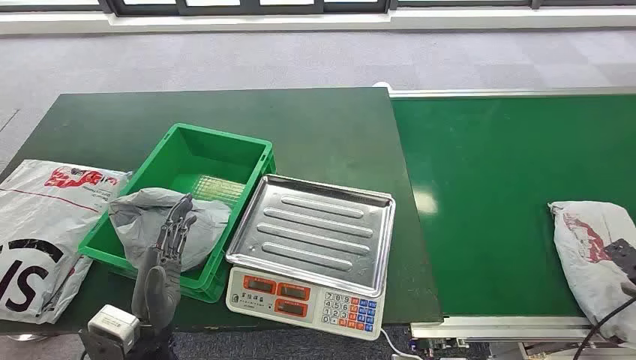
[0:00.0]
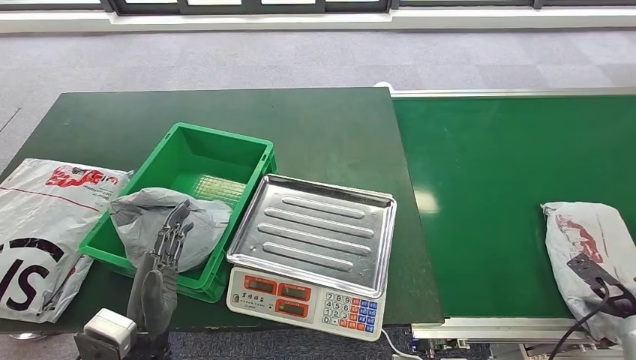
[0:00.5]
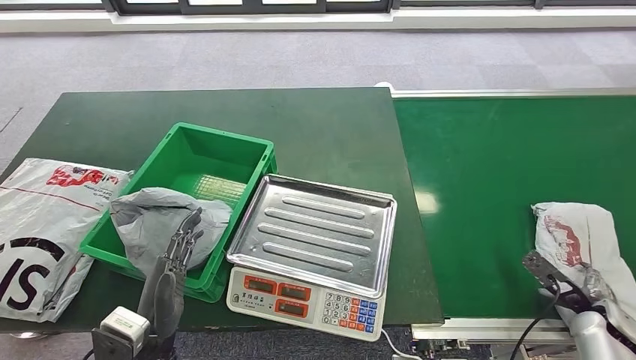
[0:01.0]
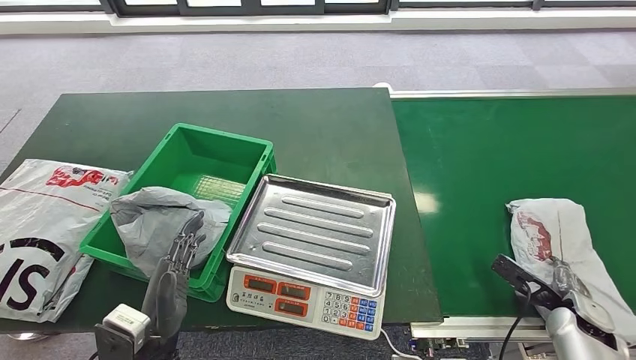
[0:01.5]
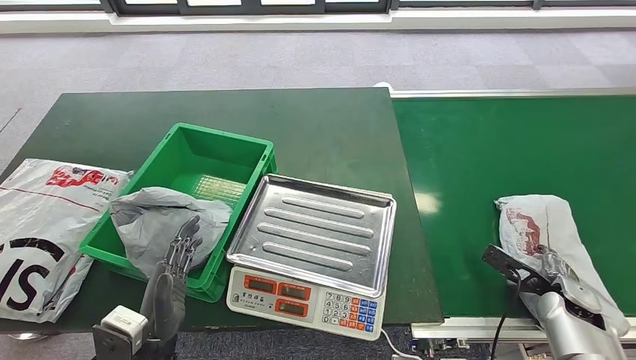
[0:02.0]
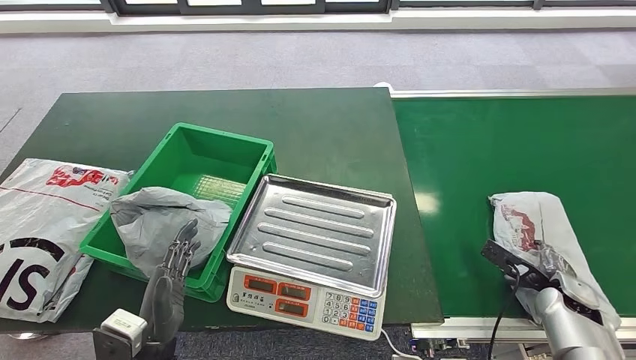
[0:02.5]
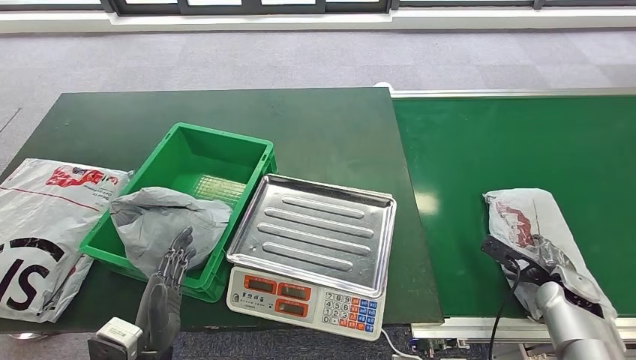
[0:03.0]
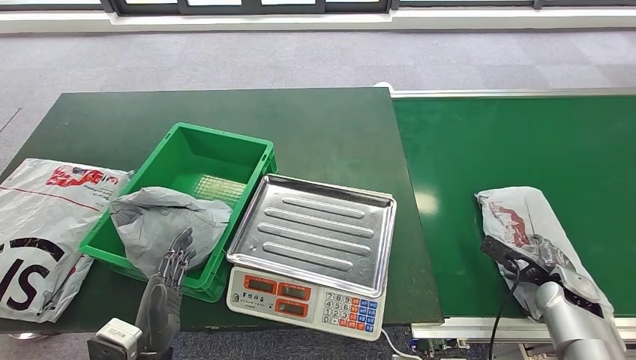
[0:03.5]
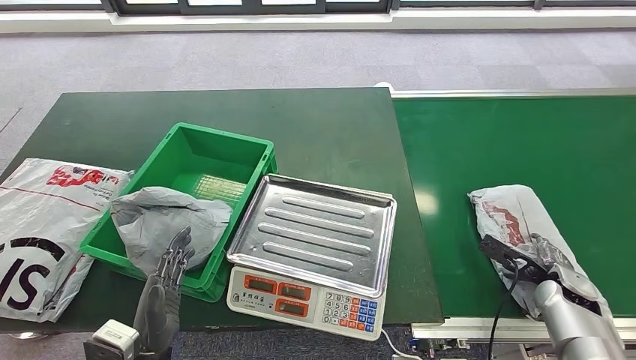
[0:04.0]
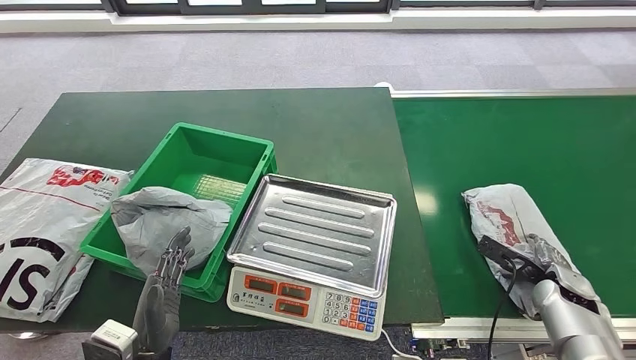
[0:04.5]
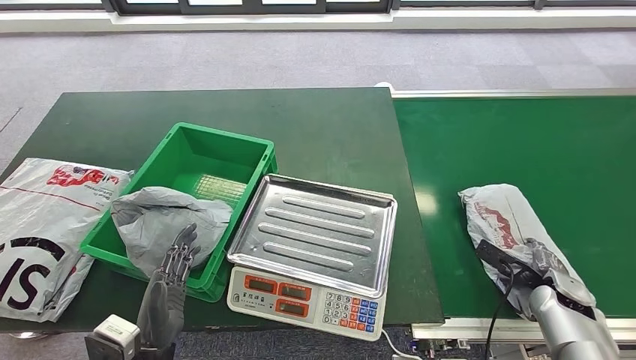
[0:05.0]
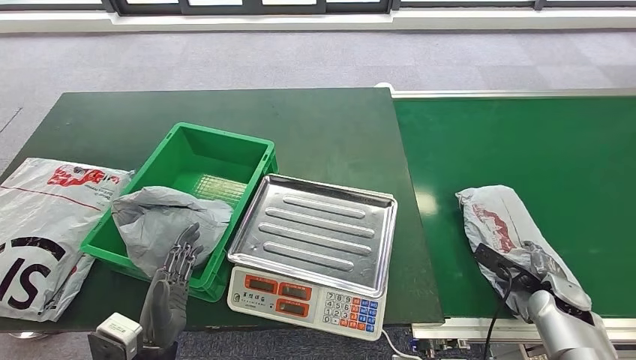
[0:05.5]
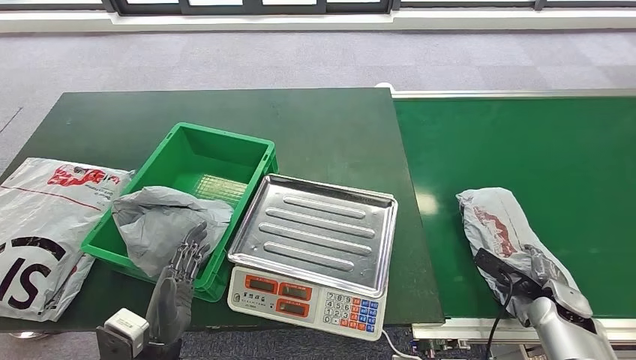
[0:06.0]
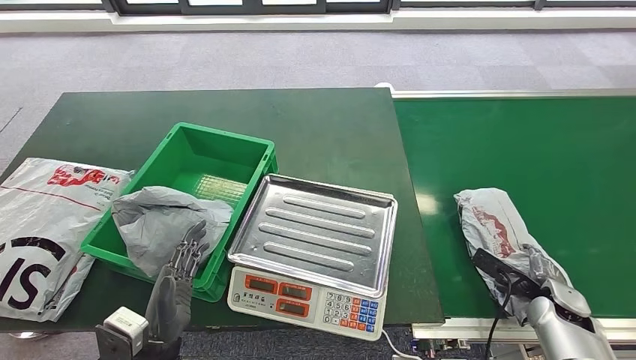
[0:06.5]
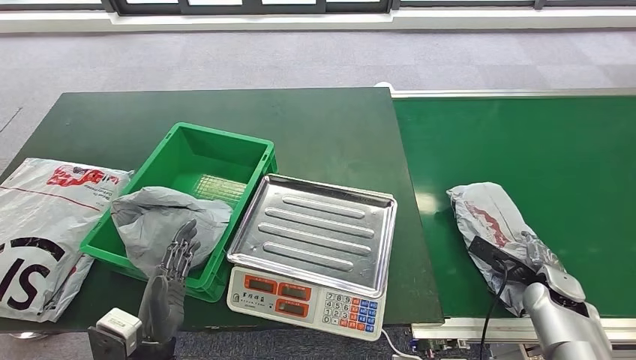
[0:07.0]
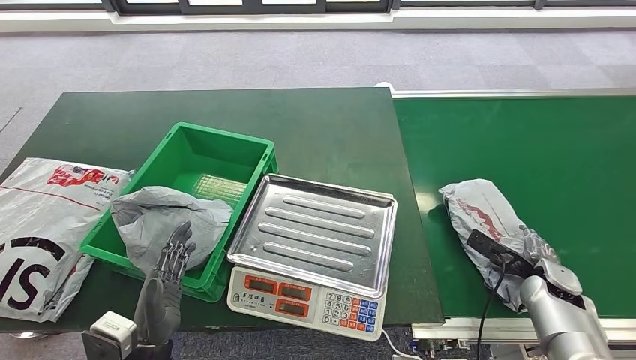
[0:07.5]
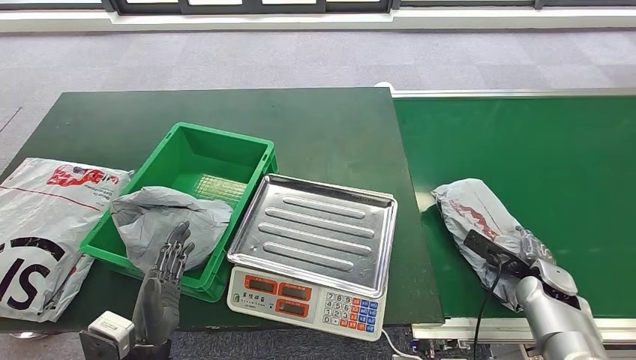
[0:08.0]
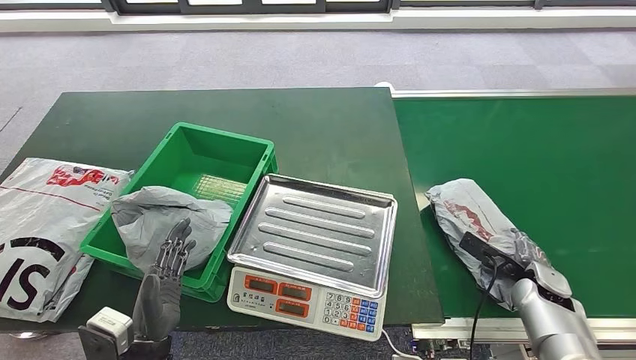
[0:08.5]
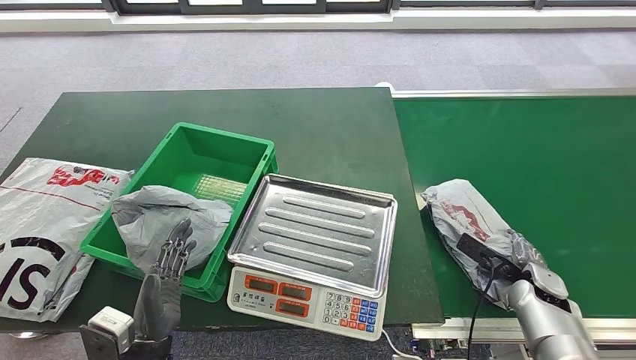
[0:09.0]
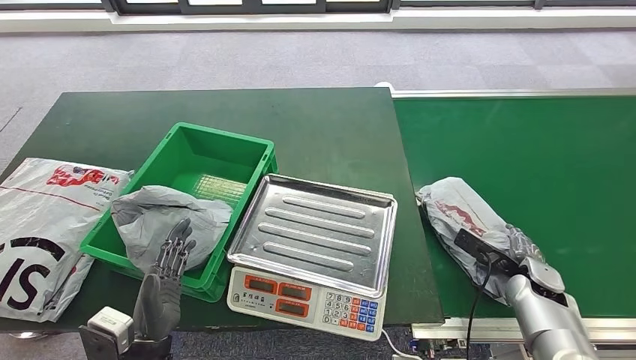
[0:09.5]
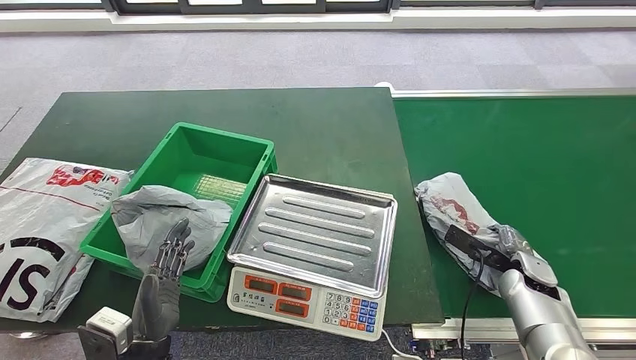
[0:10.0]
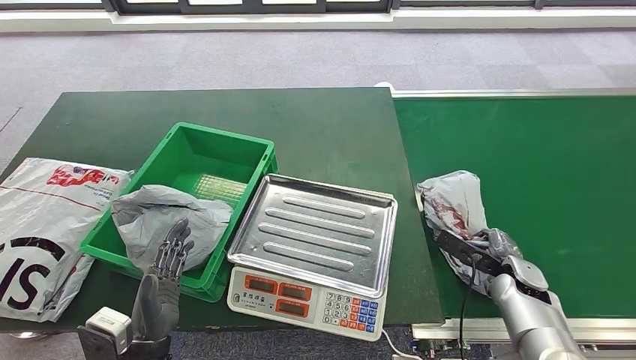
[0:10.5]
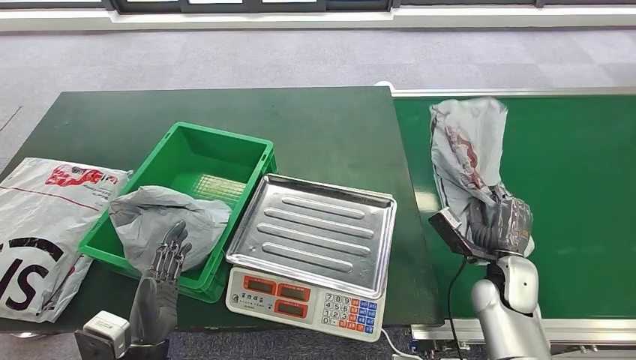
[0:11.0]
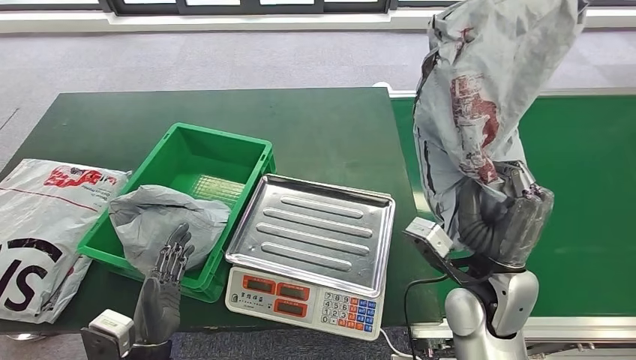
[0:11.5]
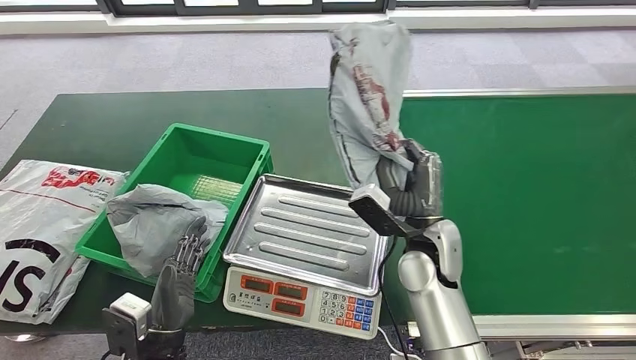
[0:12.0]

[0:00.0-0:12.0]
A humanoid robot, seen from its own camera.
Step, 0:00.0 to 0:11.5: Pick up the package from the conveyor belt.
0:02.0 to 0:08.0: The hands stay close to where they were, moving slightly.
0:08.0 to 0:10.0: The hands make only small movements.

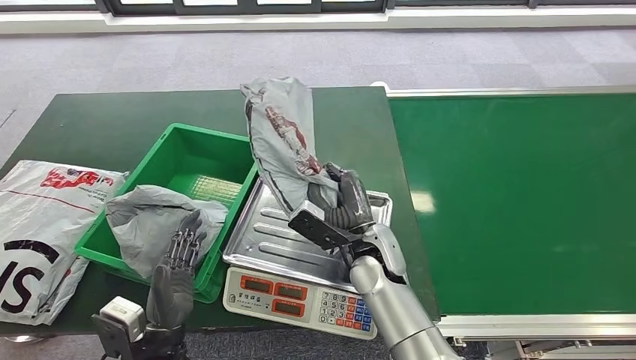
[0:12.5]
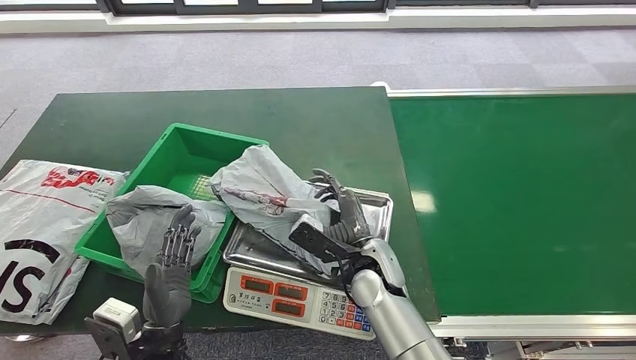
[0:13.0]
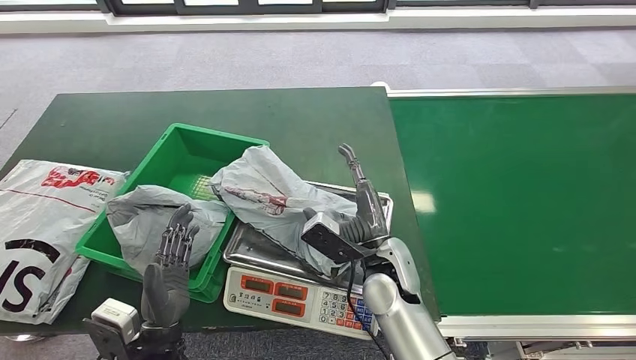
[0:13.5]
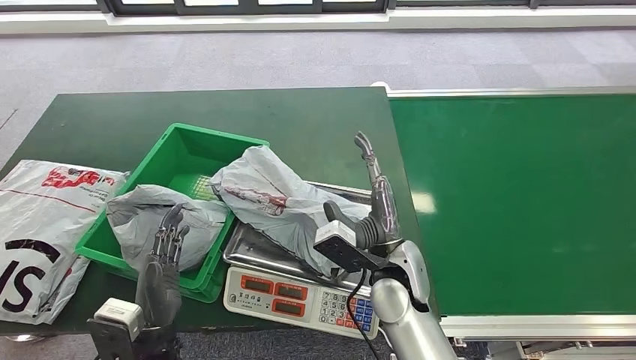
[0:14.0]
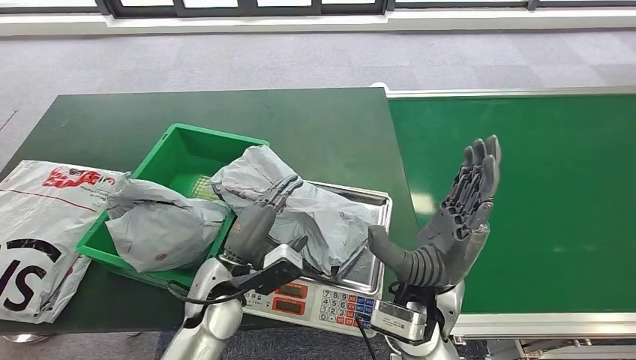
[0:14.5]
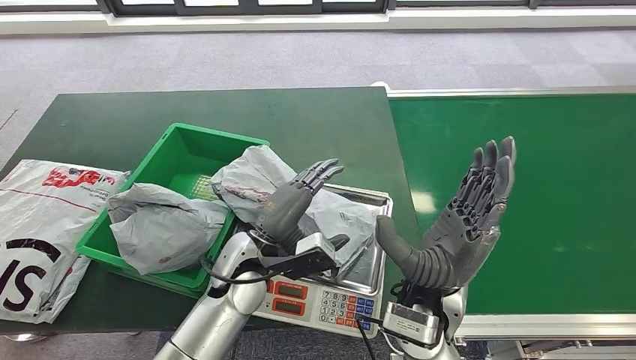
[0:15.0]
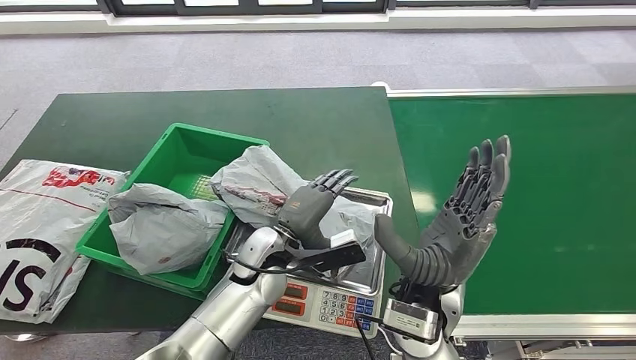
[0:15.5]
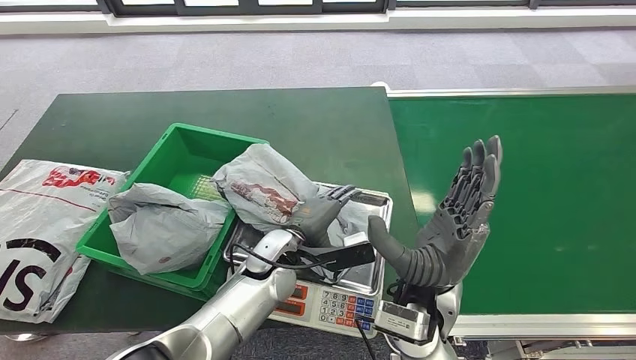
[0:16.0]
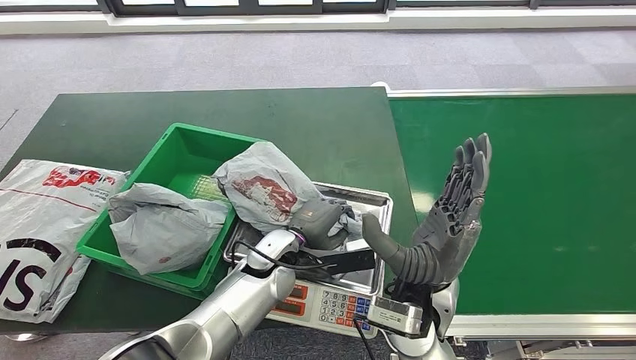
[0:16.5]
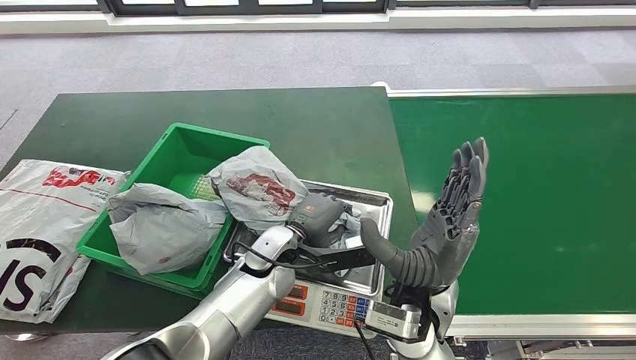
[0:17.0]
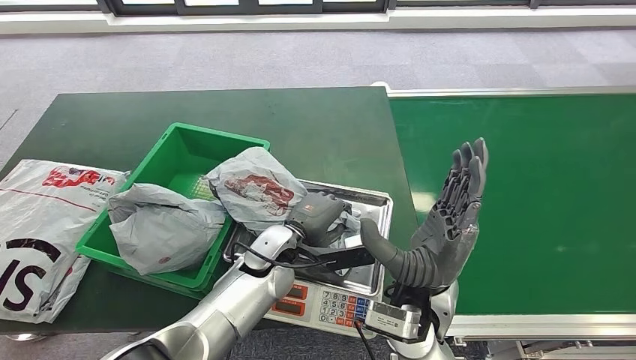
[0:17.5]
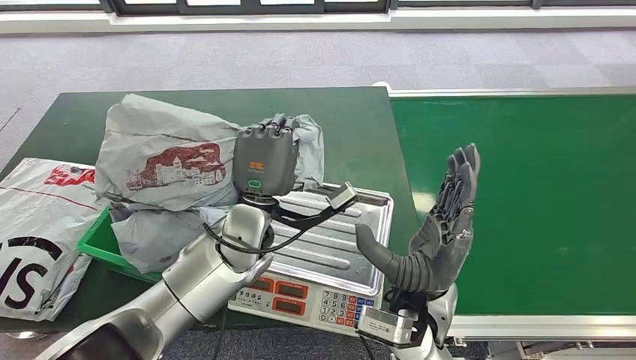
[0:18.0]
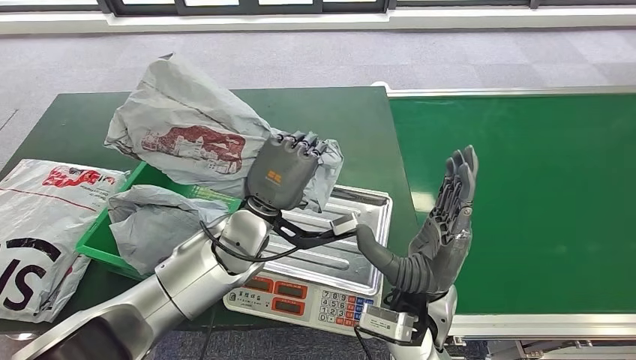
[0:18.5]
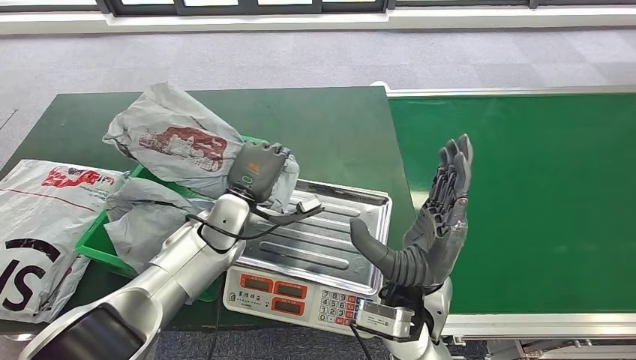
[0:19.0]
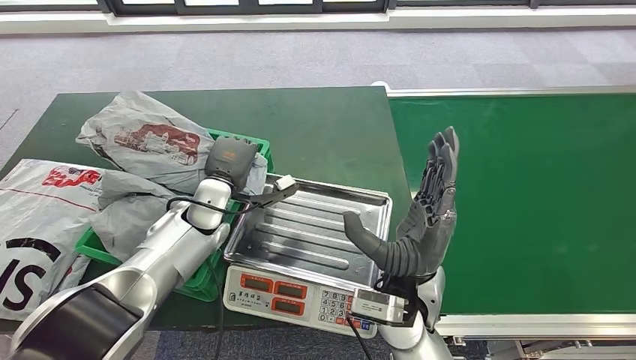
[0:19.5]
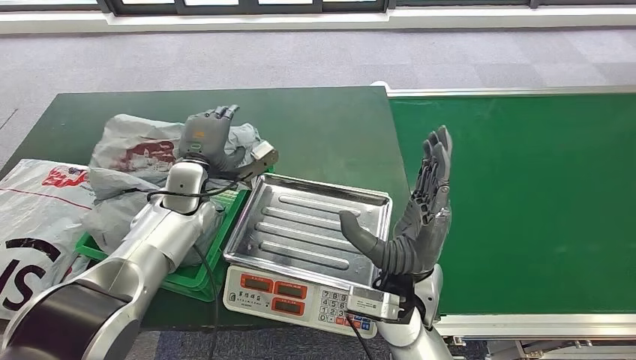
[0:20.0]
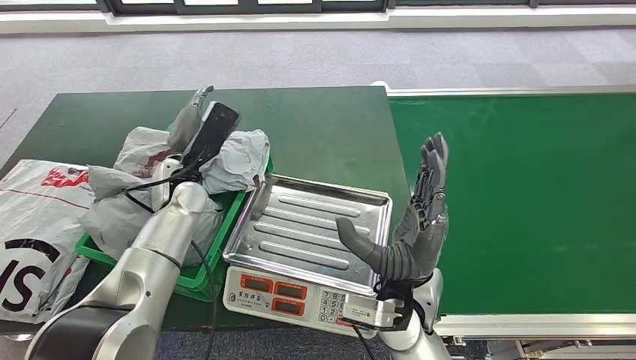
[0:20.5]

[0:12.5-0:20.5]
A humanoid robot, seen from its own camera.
Step, 0:13.0 to 0:18.0: Pick up the package from the inbound machine.
Step, 0:18.5 to 0:20.5: Place the package into the parcel locker.
0:14.5 to 0:16.5: The left hand shifts approximately 10 cm forward and to the right.
